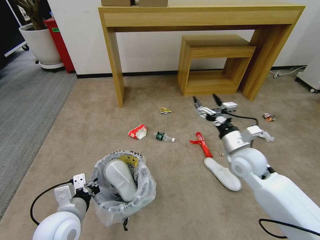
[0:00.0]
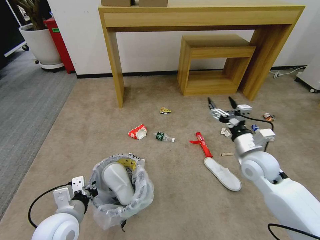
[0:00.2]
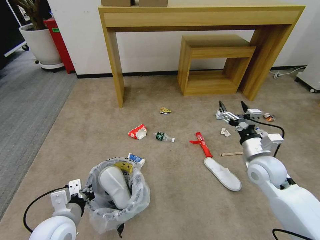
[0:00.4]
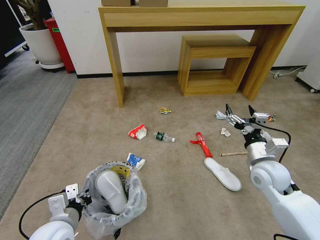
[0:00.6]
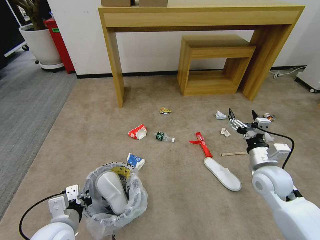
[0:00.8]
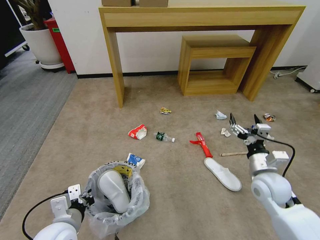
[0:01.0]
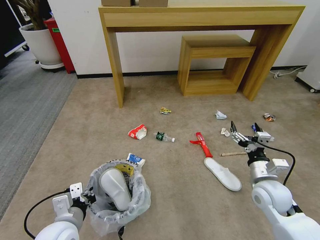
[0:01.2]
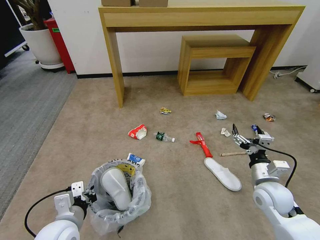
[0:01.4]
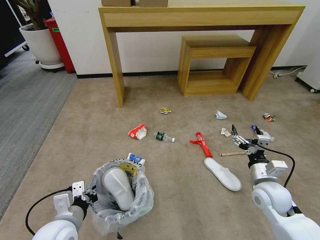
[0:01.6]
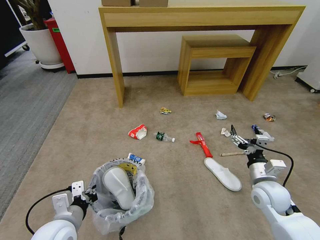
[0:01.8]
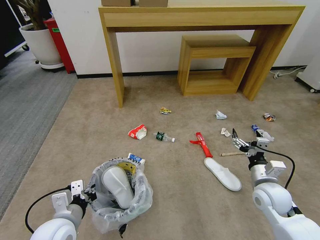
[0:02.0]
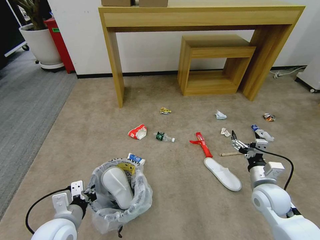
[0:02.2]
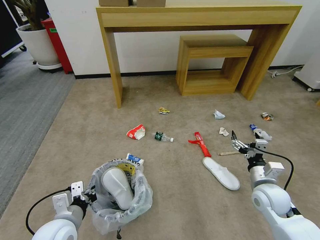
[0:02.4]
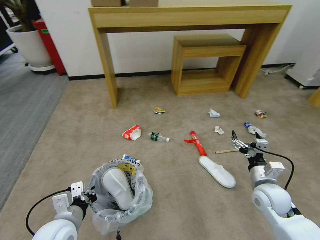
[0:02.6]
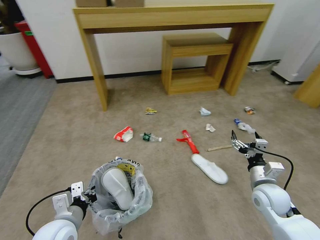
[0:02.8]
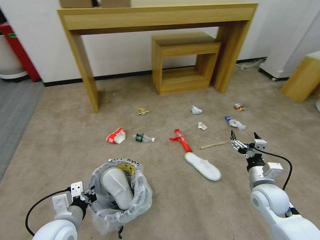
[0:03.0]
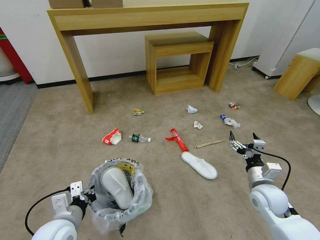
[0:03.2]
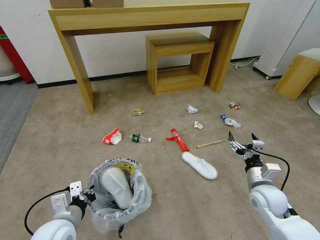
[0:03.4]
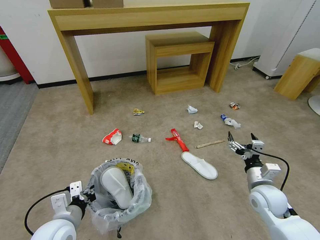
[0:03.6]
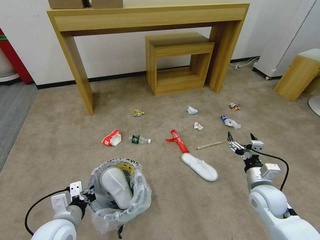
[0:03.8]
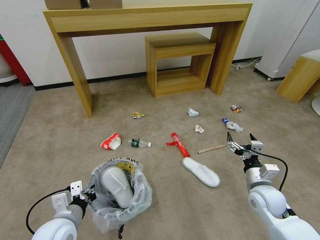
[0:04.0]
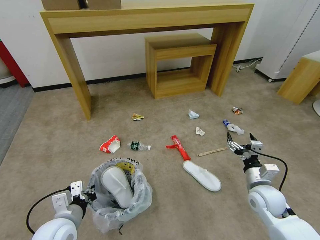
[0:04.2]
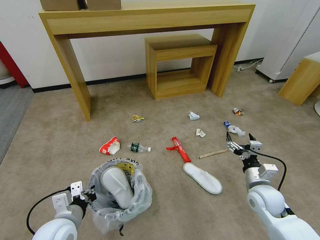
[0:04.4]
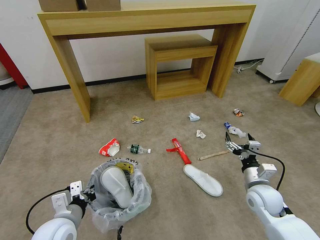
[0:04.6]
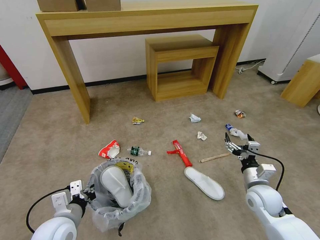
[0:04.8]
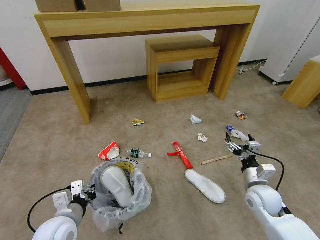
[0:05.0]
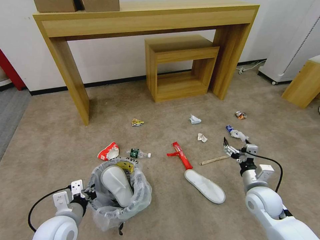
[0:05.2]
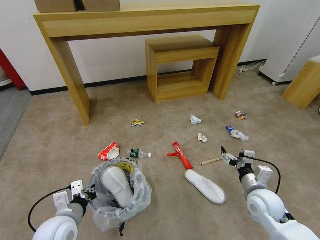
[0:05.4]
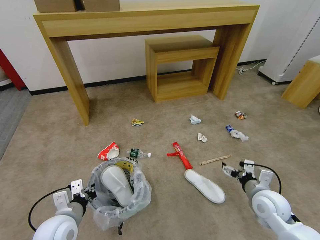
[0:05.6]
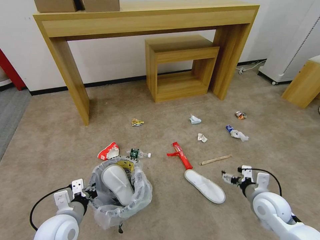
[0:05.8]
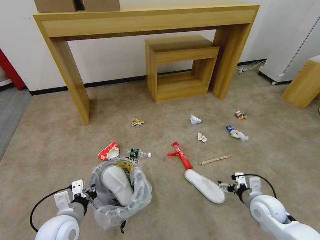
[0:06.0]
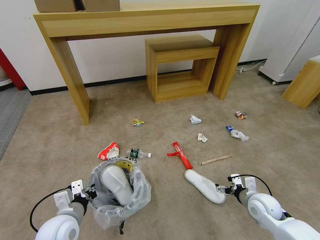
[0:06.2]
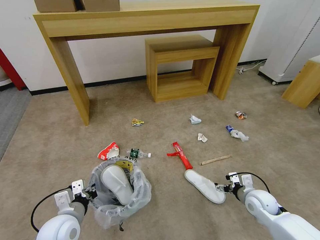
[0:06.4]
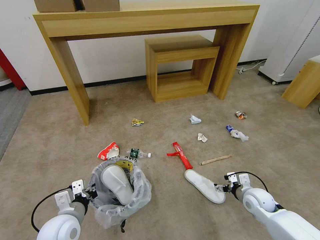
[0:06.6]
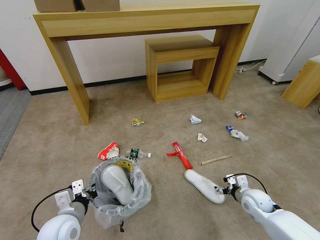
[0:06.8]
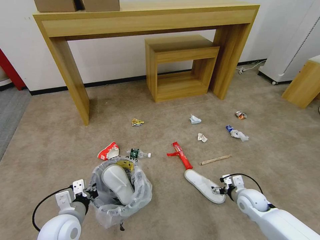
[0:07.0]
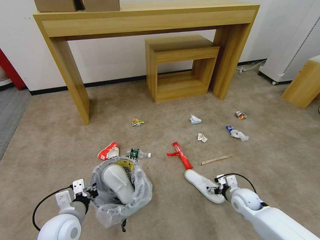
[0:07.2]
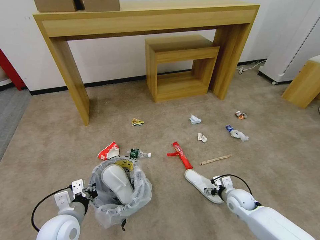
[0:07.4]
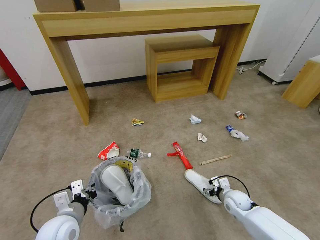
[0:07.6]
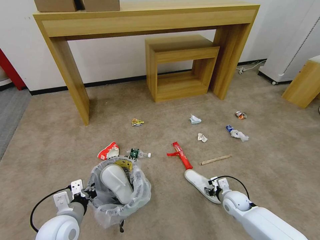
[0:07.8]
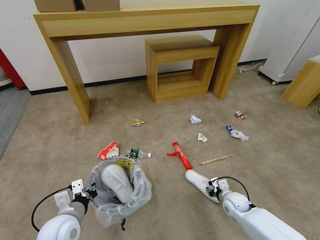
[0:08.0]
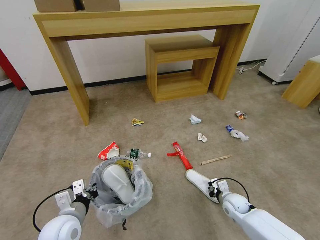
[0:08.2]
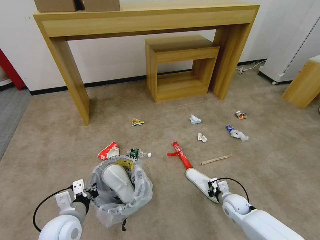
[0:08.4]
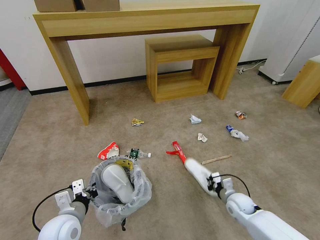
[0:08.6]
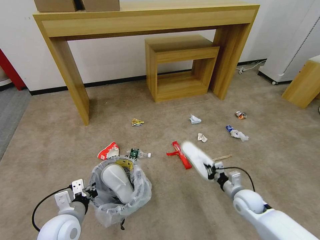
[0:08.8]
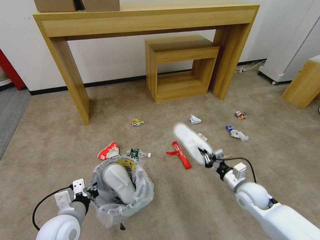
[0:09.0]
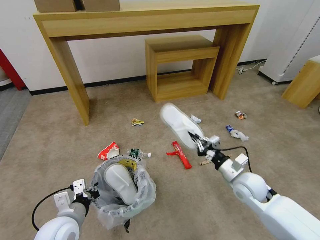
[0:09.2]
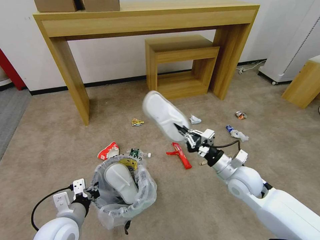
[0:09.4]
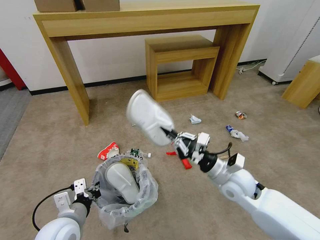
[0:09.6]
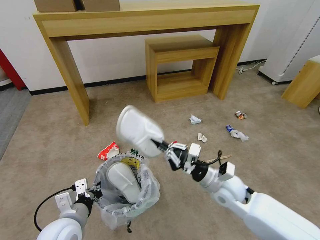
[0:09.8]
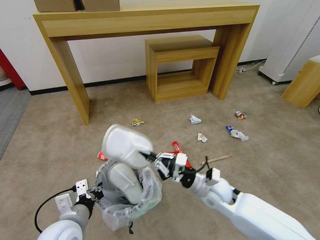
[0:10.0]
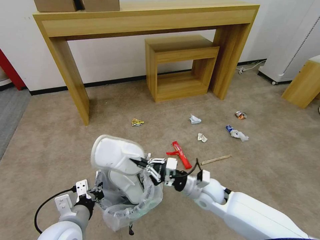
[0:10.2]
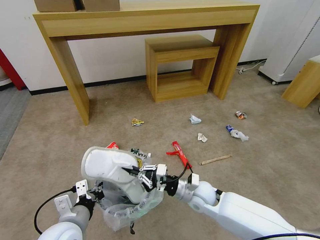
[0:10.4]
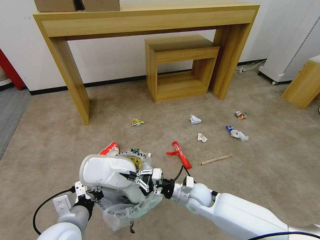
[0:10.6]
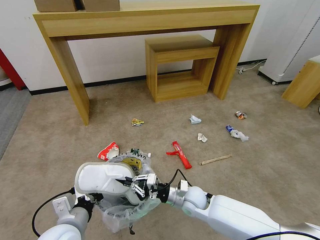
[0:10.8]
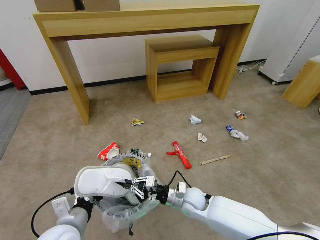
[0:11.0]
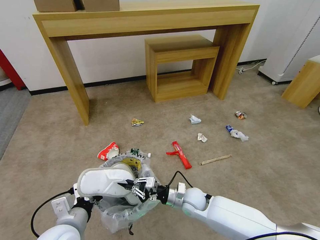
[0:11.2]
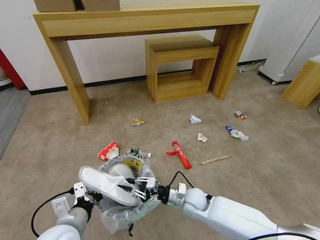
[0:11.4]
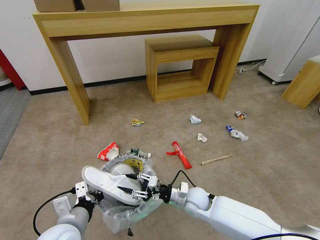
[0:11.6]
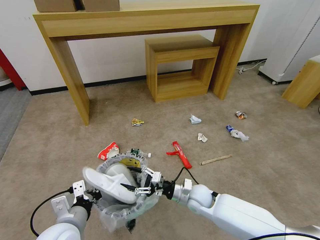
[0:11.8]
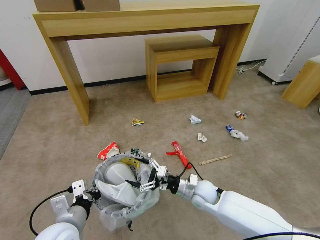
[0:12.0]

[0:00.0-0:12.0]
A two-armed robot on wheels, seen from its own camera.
Task of the whole recording: Pick up the trash bin and place the garbage on the floor into it.
0:00.0 to 0:01.6: The right gripper shifts approximately 15 cm downward, backward and to the right.
0:03.0 to 0:04.4: Neither gripper changes place.
0:06.0 to 0:07.6: The right gripper moves downward and forward, approximately 10 cm.
0:07.6 to 0:09.0: The right gripper travels upward by some 10 cm, and closes.
0:09.0 to 0:10.4: The right gripper shifts about 15 cm to the left.
0:10.4 to 0:12.0: The right gripper opens up.

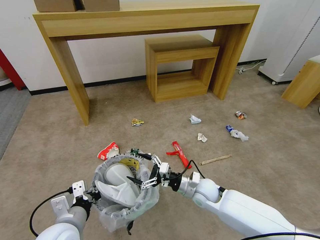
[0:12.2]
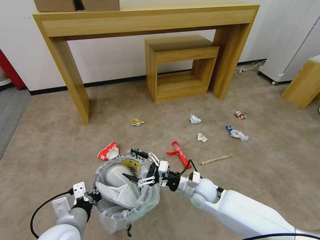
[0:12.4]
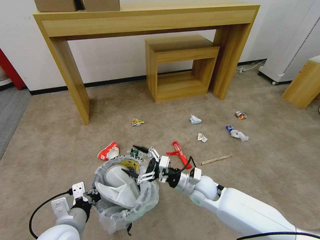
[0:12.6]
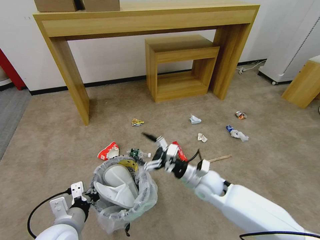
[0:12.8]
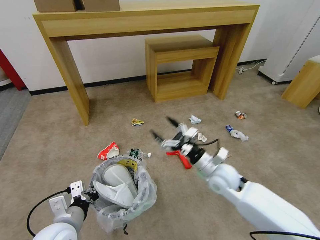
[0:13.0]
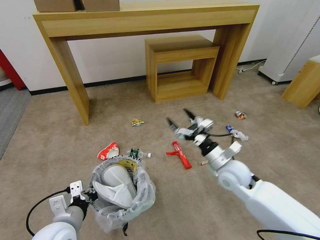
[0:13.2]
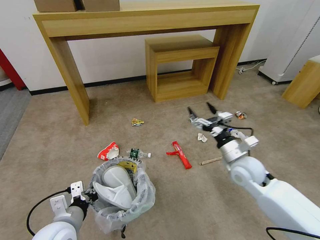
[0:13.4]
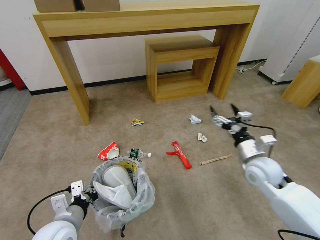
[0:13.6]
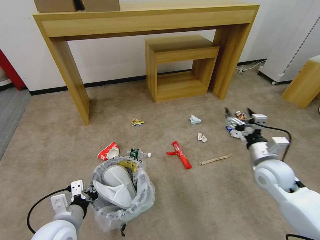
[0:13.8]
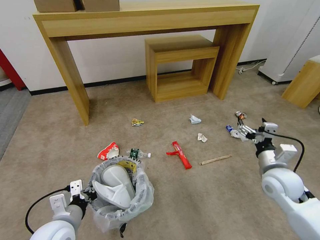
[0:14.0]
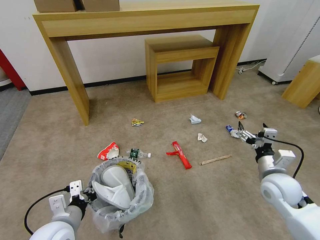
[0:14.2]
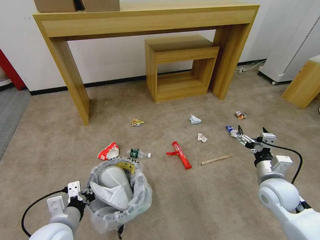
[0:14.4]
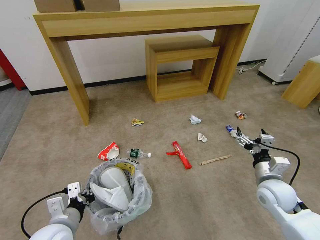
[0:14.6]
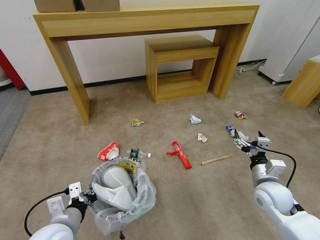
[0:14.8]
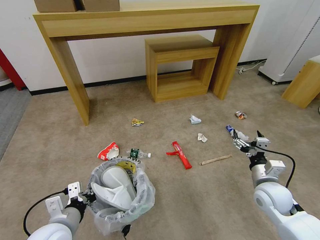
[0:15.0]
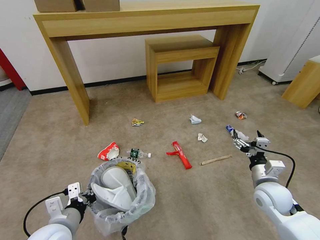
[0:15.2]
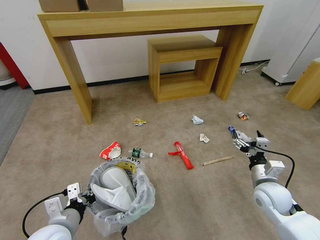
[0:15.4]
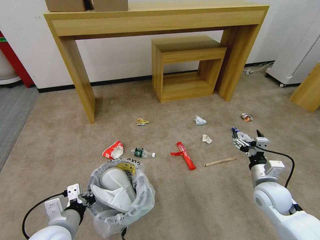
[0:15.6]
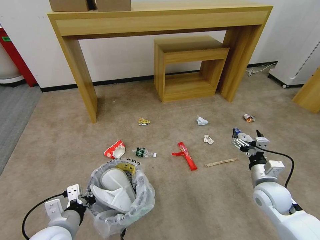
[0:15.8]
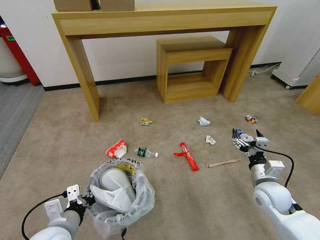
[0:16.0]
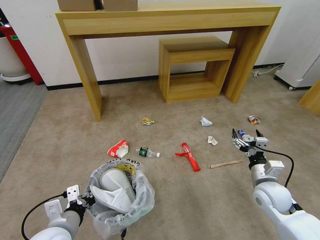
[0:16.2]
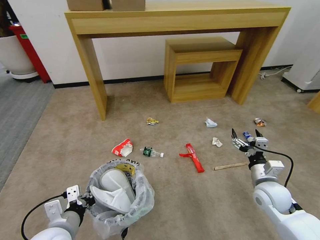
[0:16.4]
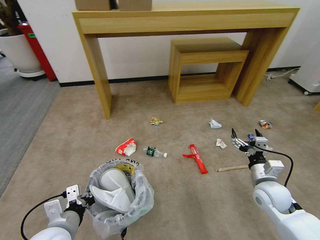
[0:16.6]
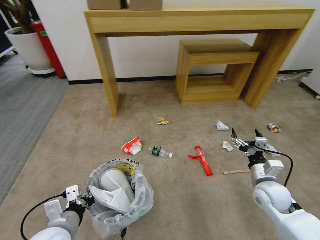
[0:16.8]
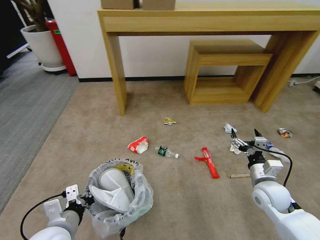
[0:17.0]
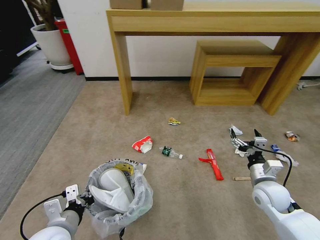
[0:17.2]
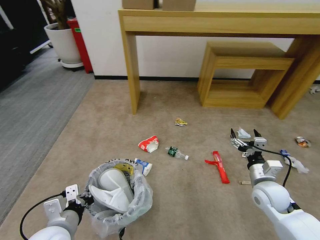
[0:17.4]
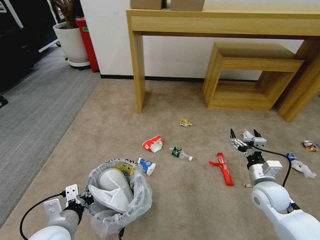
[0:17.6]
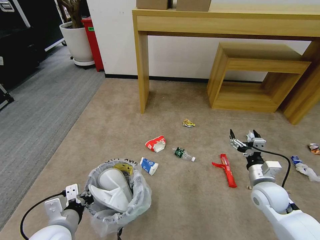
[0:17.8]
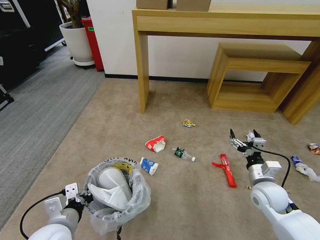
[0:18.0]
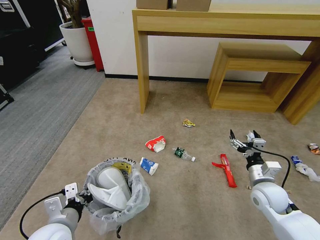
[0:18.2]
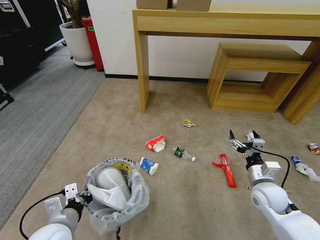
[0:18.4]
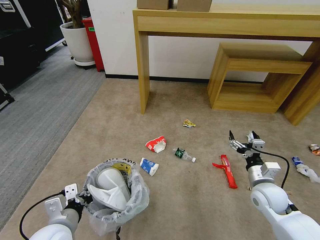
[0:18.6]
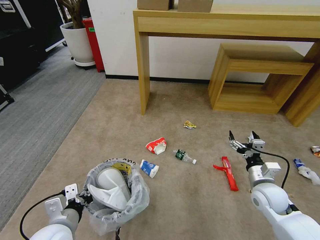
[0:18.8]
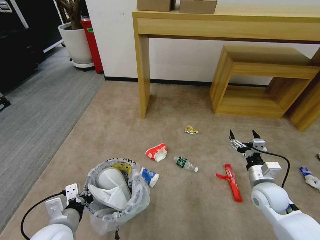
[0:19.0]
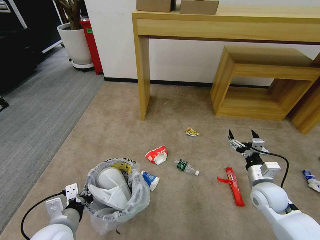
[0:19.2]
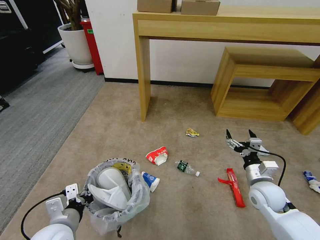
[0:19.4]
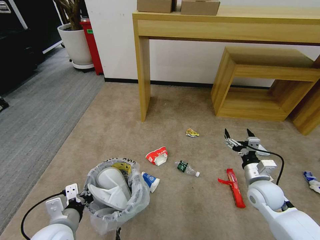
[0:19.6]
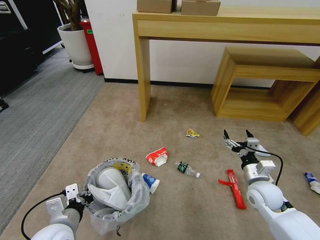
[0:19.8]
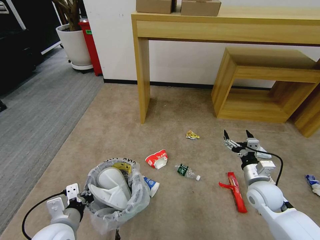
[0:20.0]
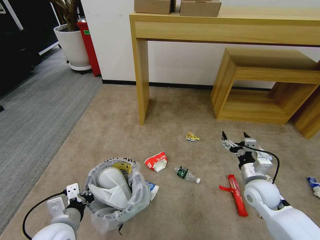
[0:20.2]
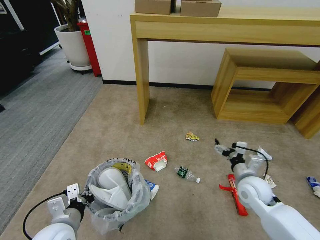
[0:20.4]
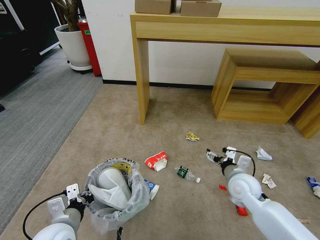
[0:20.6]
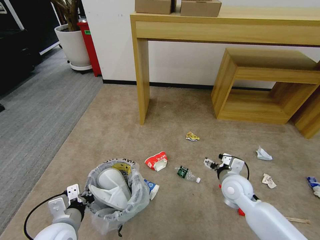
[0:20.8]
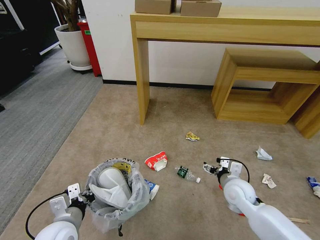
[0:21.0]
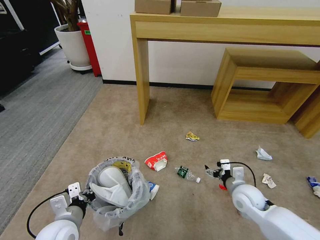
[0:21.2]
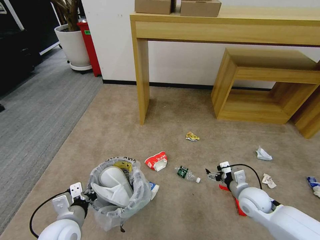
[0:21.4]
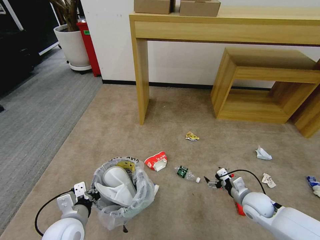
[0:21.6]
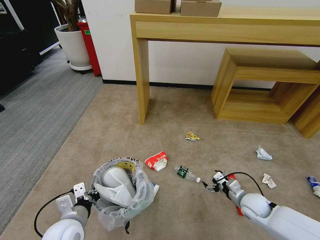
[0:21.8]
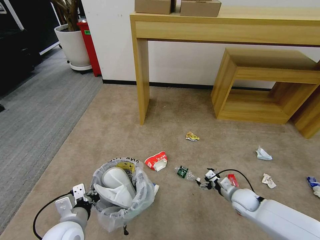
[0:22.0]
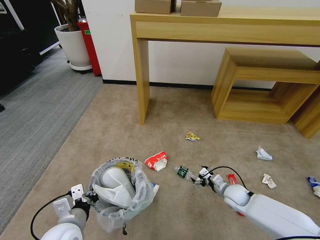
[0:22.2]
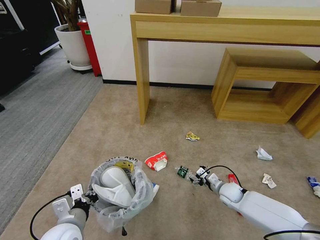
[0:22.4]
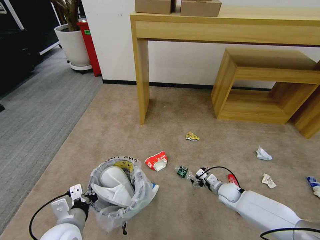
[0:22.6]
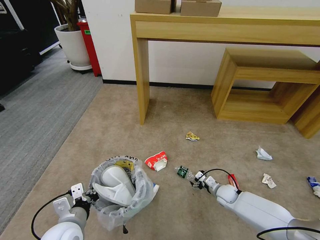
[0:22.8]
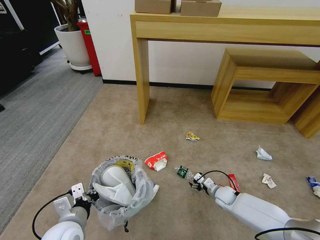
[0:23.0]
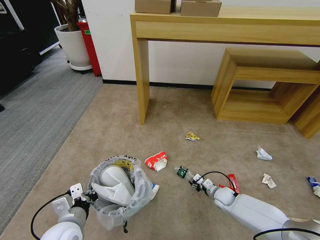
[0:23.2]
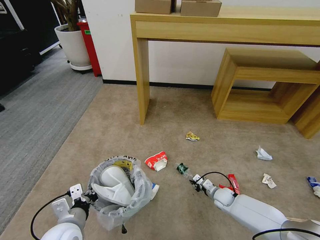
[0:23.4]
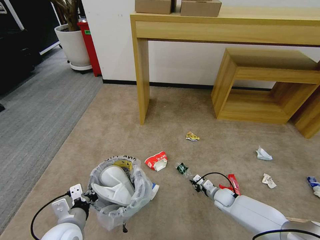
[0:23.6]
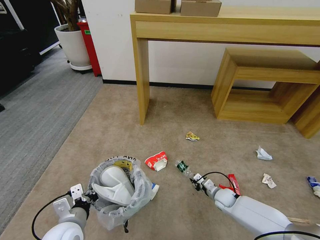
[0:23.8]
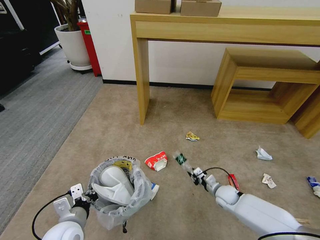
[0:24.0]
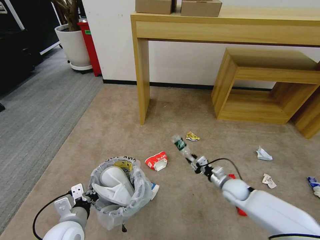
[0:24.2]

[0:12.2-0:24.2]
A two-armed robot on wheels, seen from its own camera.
Task of the whole recording: Pick up the trash bin and place the garbage on the floor into it.
0:12.2 to 0:13.8: The right gripper heads to the right and upward, covering approximately 25 cm.
0:13.8 to 0:15.2: The right gripper is displaced downward by roughly 5 cm.
0:21.2 to 0:22.6: The right gripper is displaced downward and forward by about 15 cm.
0:22.6 to 0:24.2: The right gripper heads upward, covering approximately 5 cm, and closes its fingers.
